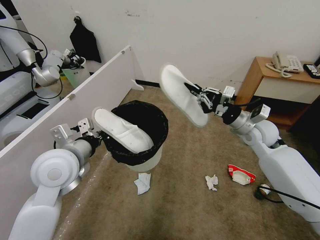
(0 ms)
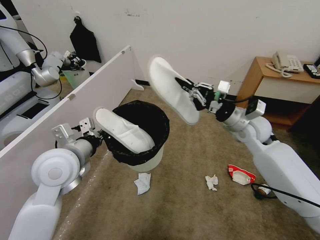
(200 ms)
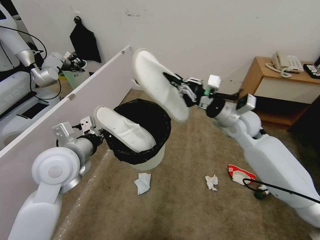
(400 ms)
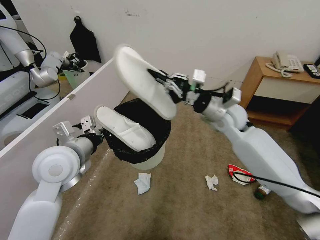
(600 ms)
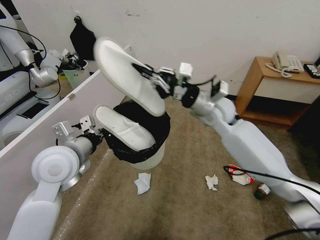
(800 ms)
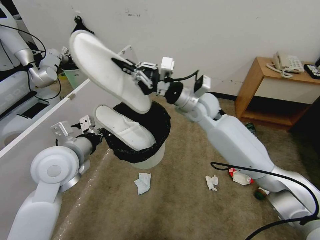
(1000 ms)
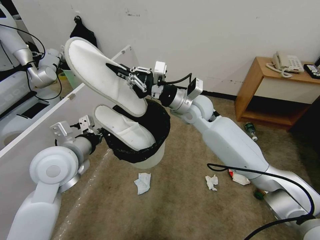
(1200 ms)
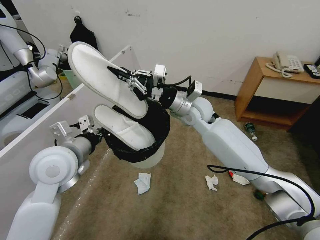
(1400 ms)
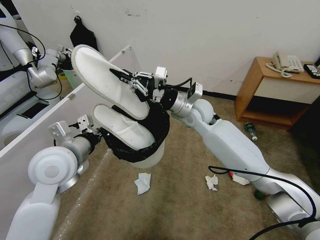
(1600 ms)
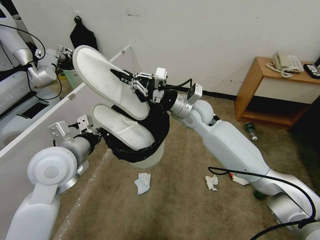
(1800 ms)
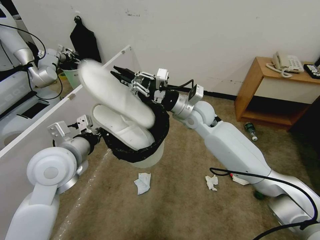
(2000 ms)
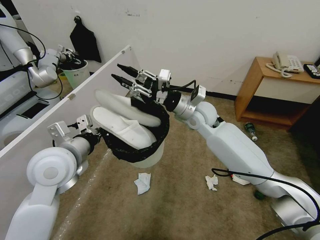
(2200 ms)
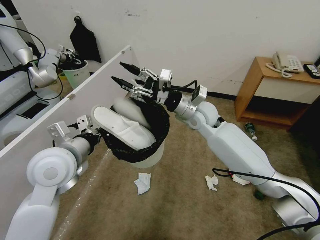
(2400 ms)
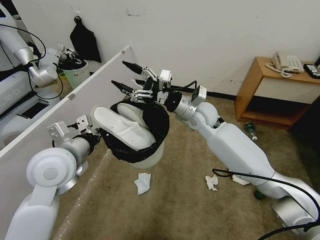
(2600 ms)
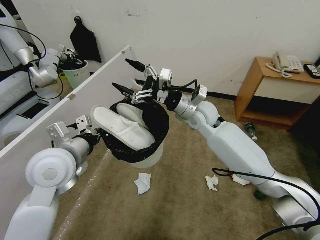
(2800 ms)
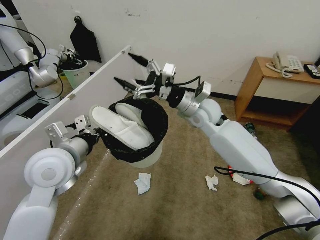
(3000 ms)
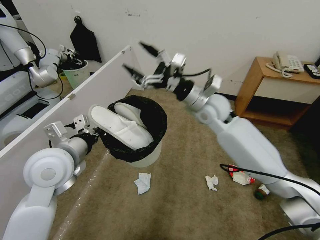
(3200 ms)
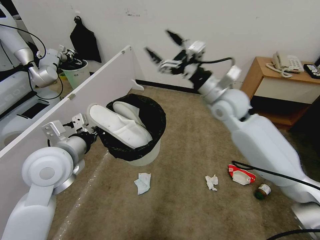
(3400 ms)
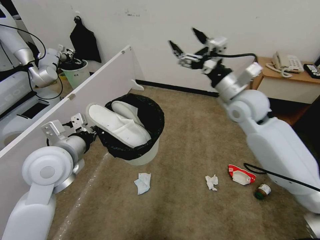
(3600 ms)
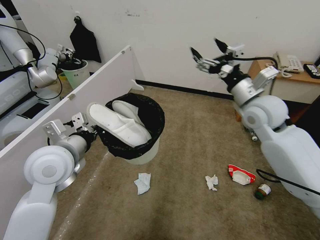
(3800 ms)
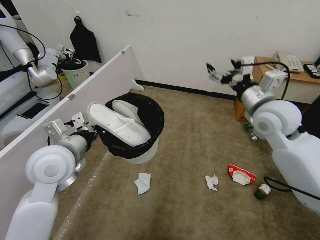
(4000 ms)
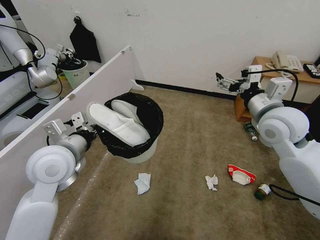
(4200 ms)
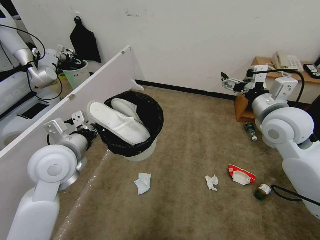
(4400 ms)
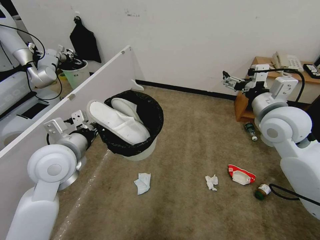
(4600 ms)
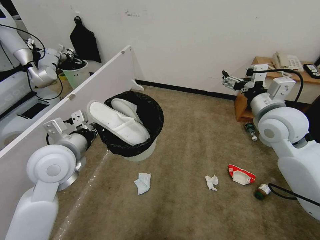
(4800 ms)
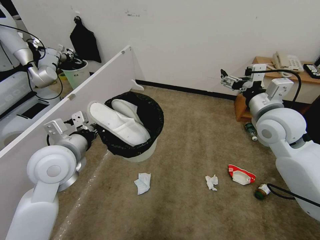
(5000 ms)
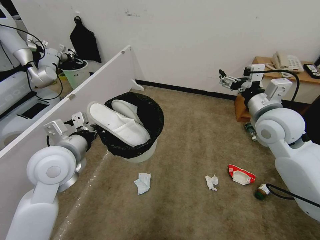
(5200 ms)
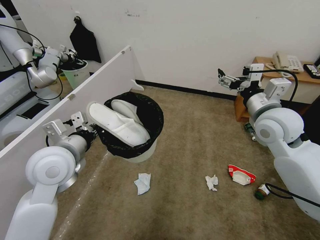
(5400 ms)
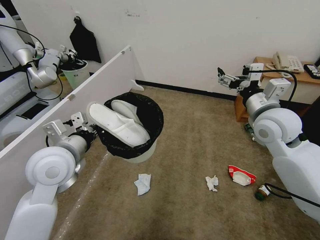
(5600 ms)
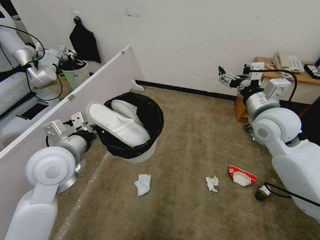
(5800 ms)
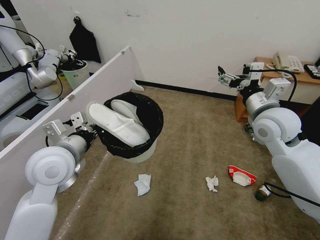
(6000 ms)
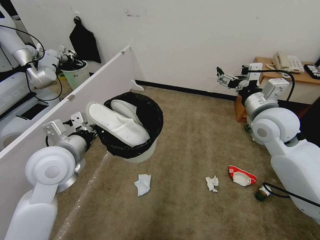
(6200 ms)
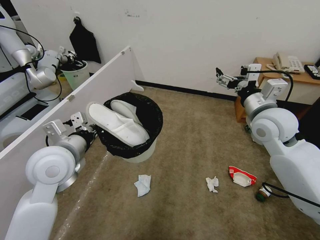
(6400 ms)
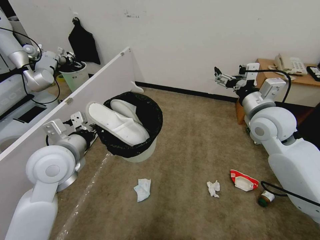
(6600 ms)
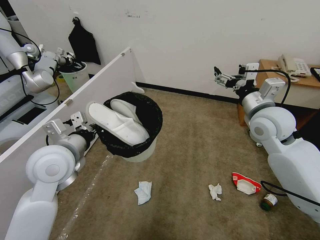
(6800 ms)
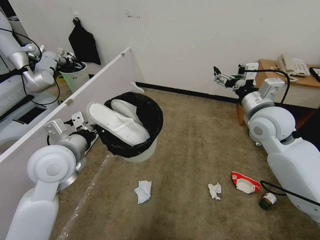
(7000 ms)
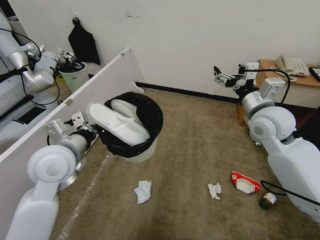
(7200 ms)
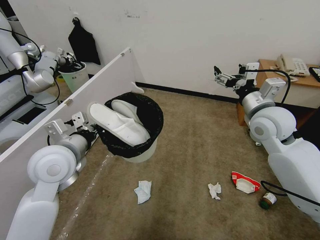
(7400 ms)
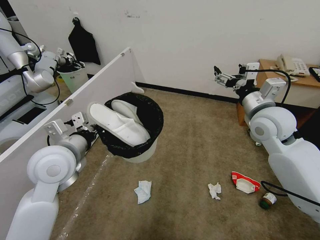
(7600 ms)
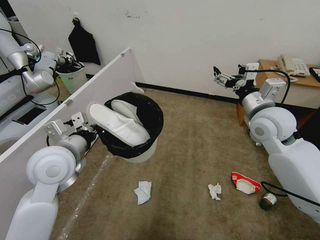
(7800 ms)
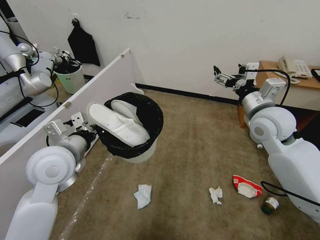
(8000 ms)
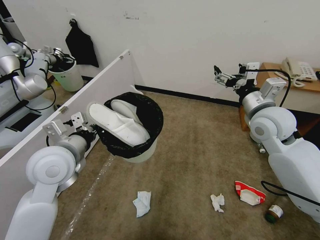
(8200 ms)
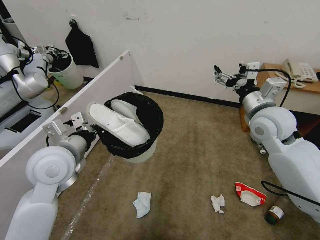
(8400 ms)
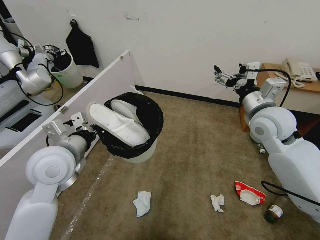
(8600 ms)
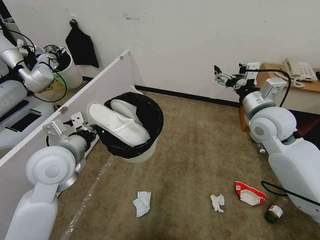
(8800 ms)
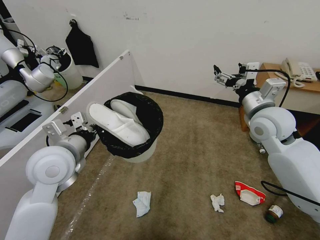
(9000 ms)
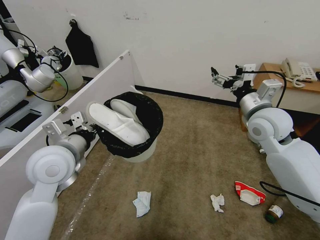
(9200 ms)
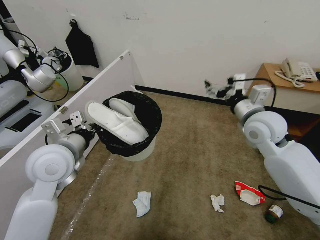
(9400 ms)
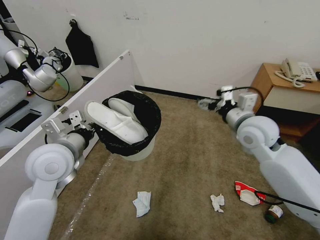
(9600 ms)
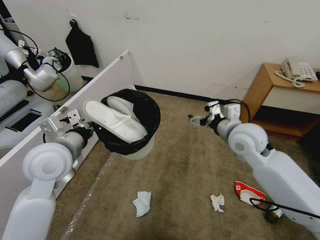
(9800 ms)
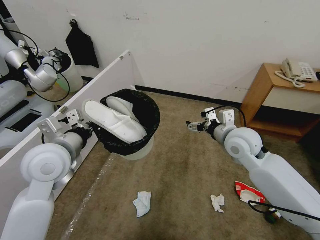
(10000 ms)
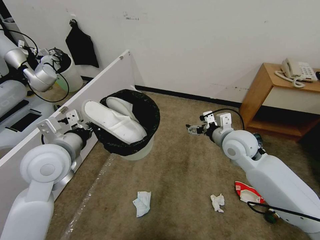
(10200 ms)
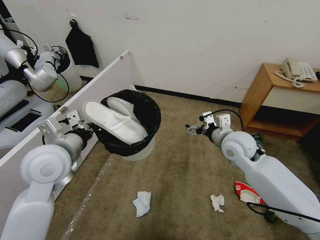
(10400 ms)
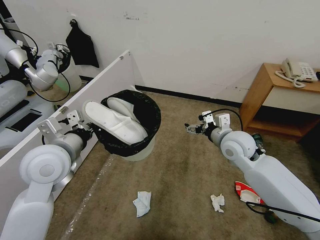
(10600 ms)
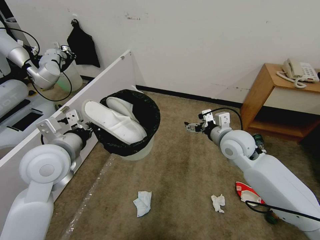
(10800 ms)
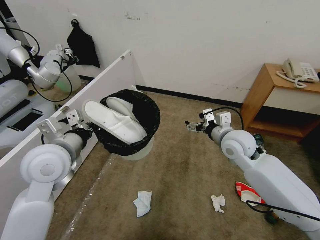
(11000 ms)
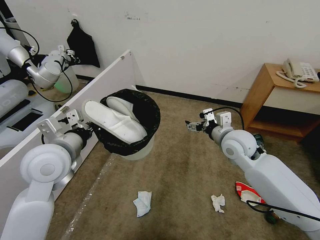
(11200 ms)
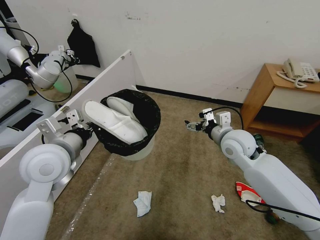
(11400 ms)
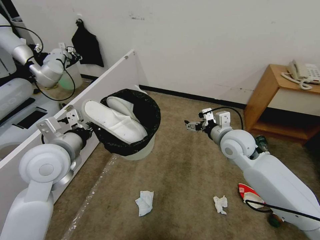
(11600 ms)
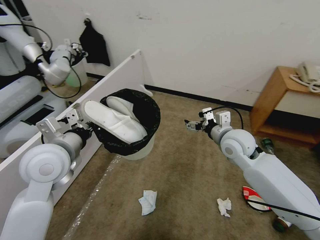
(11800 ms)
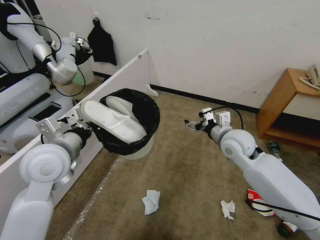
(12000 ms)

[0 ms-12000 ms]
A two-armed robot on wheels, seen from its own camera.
Task of the whole recording: Pick up the trash bin, then pick up the garbage from the floor and place it into the trash bin.
0 ms to 1600 ms: The right gripper shifts some 20 cm to the left.
1600 ms to 3000 ms: The right gripper opens up.
3000 ms to 4400 ms: The right gripper moves to the right and backward, about 20 cm.
4400 ms to 6000 ms: The grippers move only a little.
6000 ms to 9000 ms: The two grippers keep their place.
9000 ms to 10400 ms: The right gripper is displaced downward and to the left by roughly 10 cm.

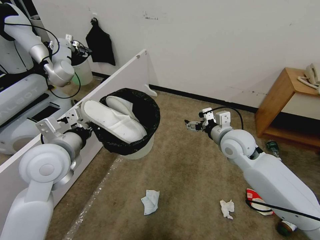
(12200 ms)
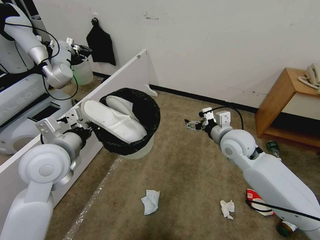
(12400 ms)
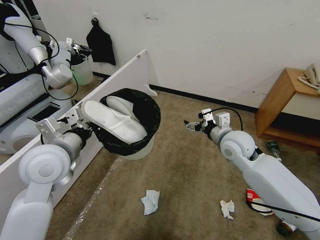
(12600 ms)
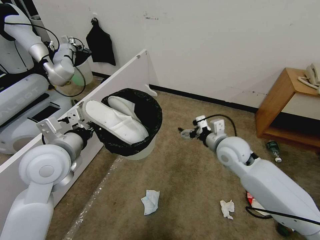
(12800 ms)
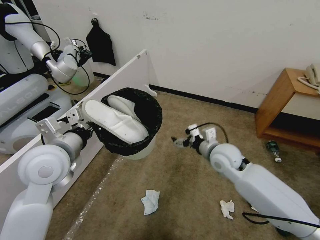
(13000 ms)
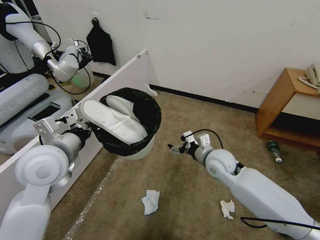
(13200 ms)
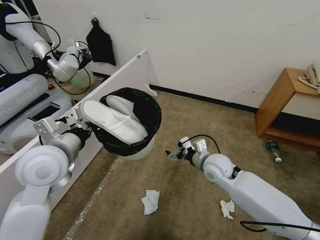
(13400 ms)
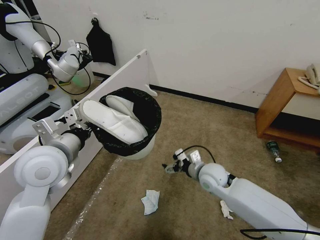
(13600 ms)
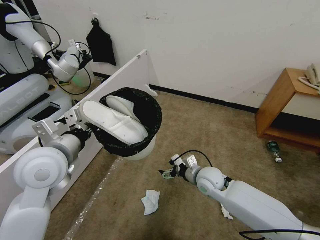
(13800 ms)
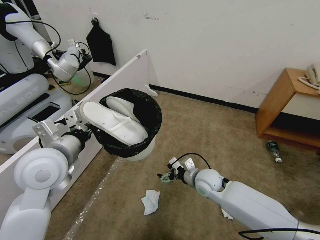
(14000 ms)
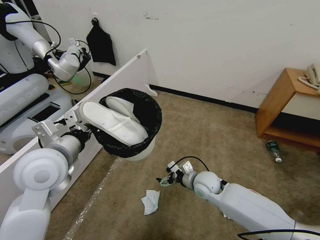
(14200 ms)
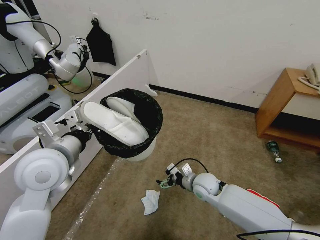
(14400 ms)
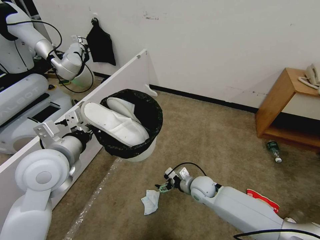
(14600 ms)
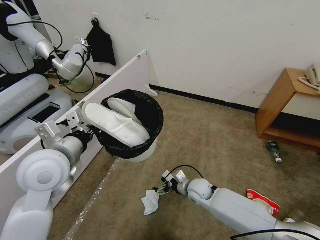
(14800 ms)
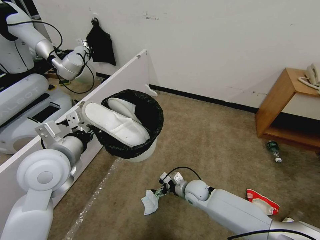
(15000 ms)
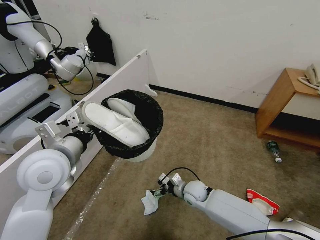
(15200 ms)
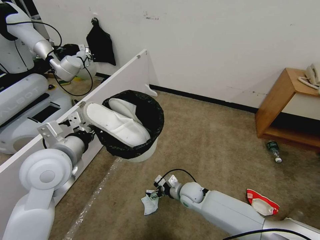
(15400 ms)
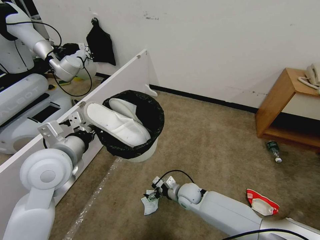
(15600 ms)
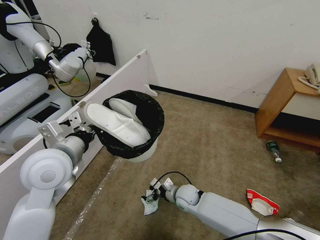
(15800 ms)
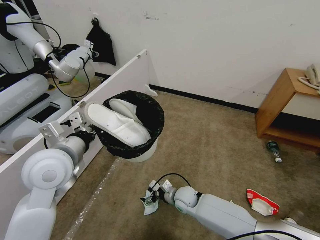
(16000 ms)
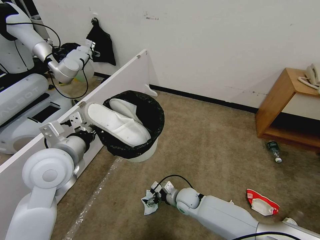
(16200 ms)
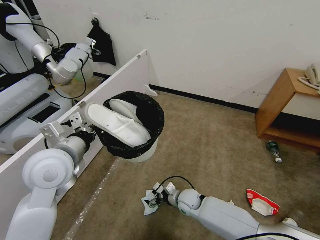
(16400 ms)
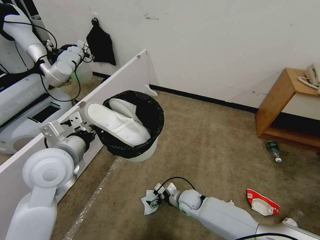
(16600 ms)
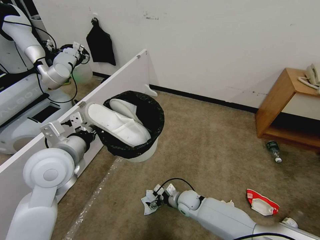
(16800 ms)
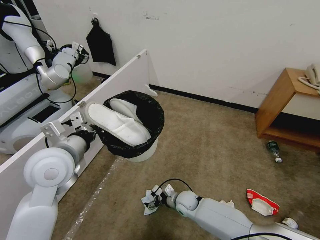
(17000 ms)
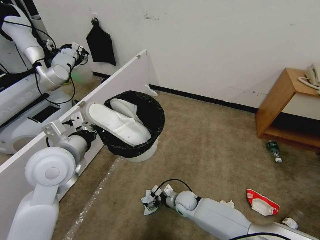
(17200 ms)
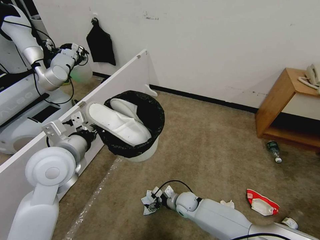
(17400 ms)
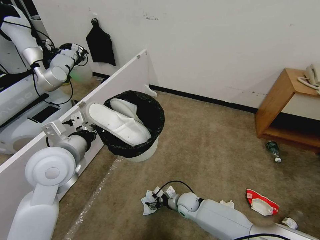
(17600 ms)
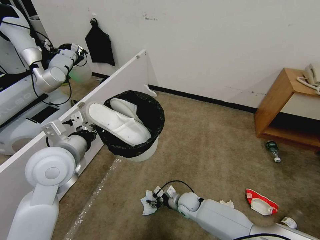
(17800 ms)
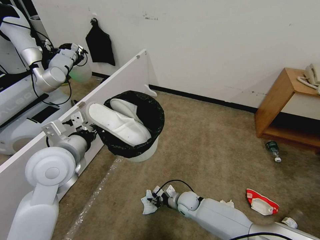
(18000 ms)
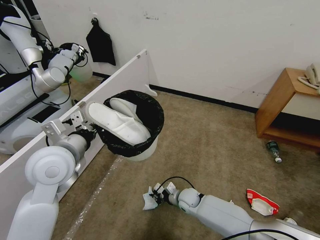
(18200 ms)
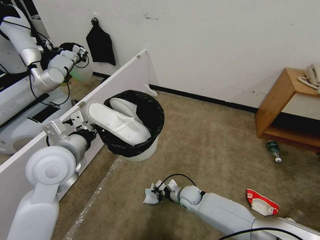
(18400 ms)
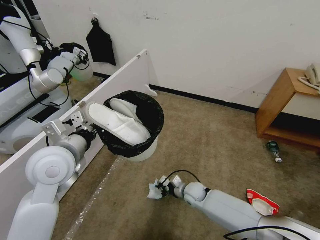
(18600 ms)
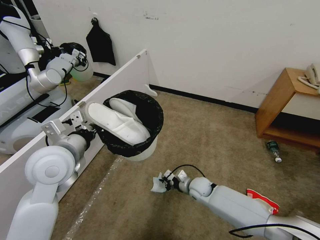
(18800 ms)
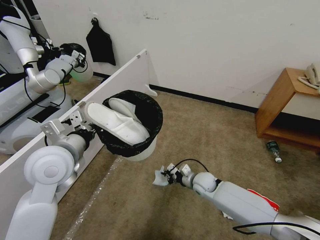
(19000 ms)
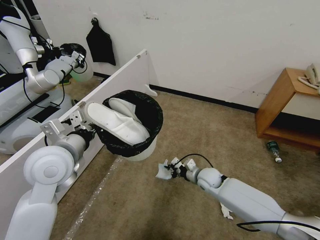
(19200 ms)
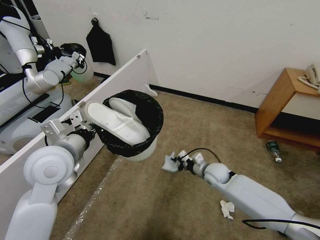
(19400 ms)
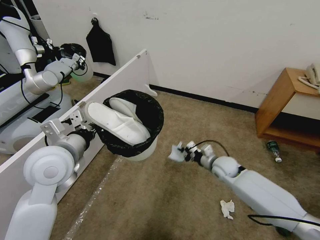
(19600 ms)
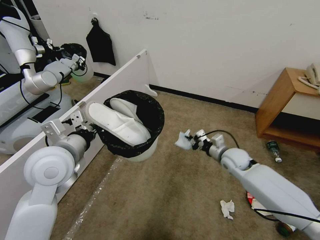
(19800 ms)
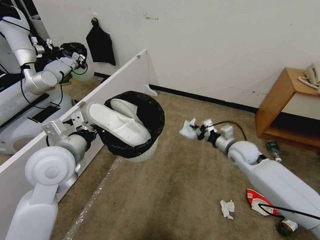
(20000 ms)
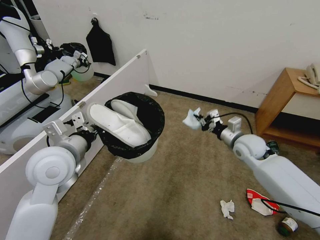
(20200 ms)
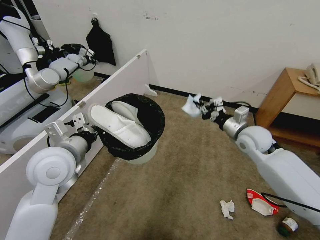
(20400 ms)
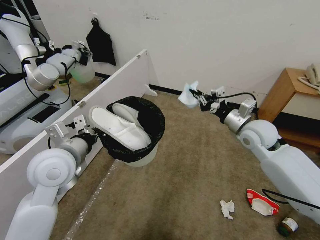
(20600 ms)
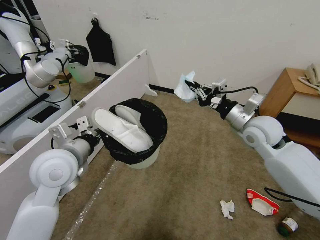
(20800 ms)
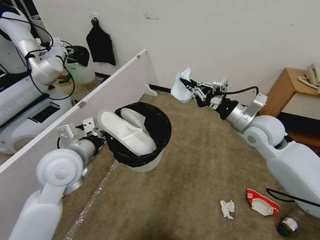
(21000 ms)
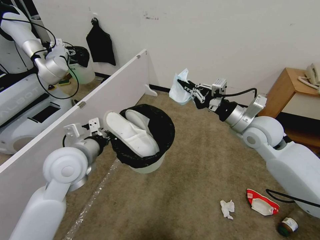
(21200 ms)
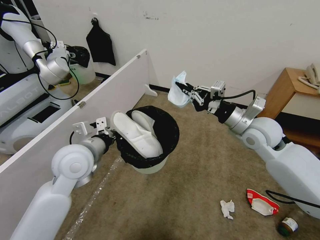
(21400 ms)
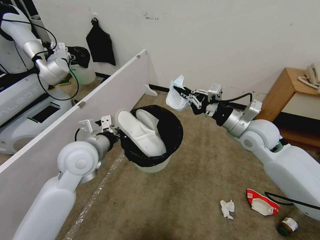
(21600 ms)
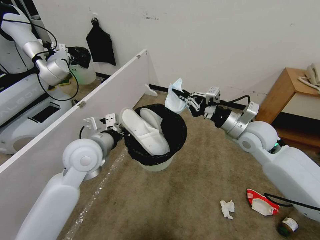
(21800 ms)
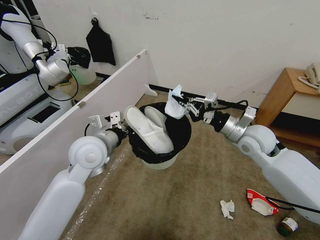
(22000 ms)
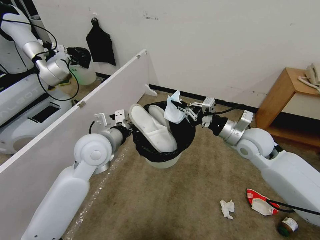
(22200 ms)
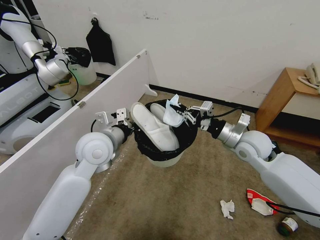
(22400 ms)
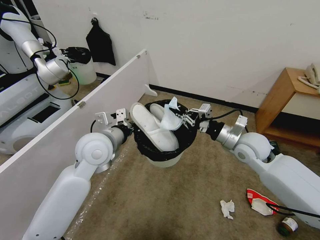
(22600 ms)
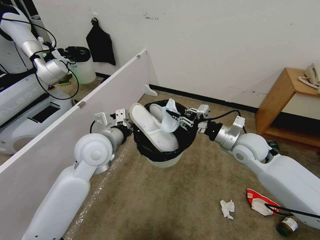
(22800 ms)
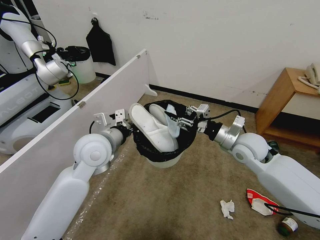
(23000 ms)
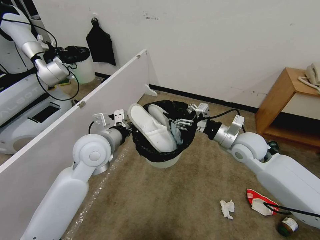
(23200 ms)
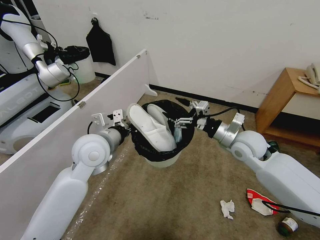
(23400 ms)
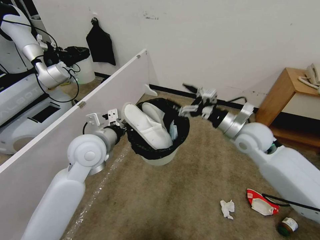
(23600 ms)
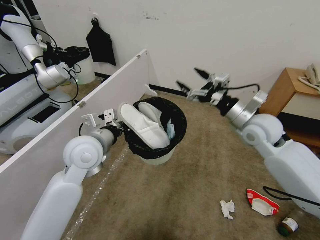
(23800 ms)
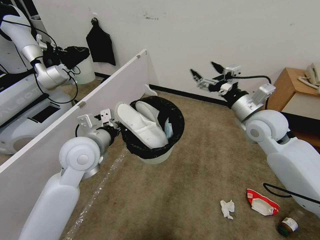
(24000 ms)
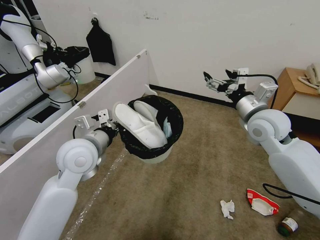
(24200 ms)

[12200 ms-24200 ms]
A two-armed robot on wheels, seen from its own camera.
Task of the whole recording: Pick up the trash bin, then pick up the garbage from the floor and place it into the trash bin.
12200 ms to 13800 ms: The right gripper shifts roughly 15 cm downward and to the left.
13800 ms to 15200 ms: The right gripper moves downward, approximately 10 cm.
15200 ms to 16600 ms: The right gripper changes place by some 5 cm.
16600 ms to 18200 ms: The right gripper closes its fingers.
18200 ms to 19800 ms: The right gripper moves upward, to the right and forward, approximately 25 cm.
19800 ms to 21200 ms: The right gripper moves upward, roughly 20 cm.
21200 ms to 22600 ms: The right gripper moves downward, some 5 cm; the left gripper shifts approximately 5 cm to the right.
22600 ms to 24200 ms: The right gripper is displaced upward by about 10 cm, and opens up.
